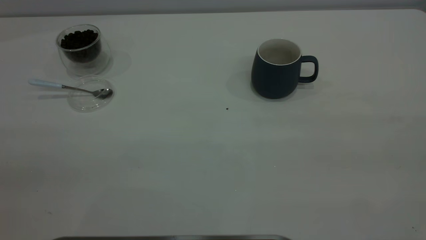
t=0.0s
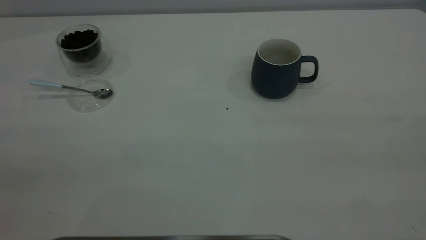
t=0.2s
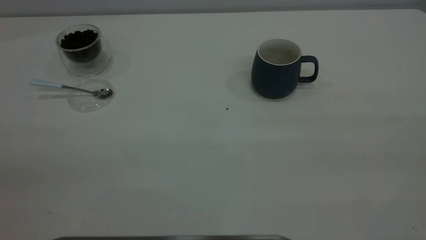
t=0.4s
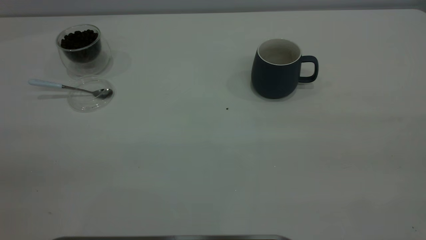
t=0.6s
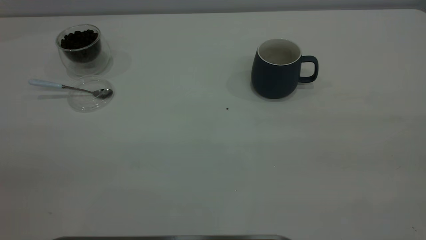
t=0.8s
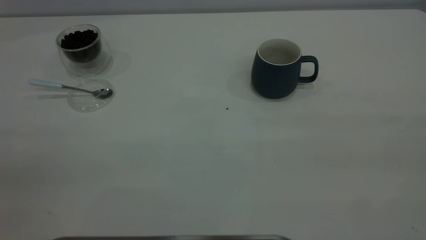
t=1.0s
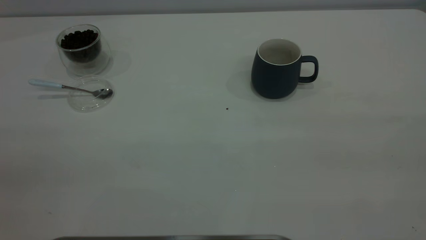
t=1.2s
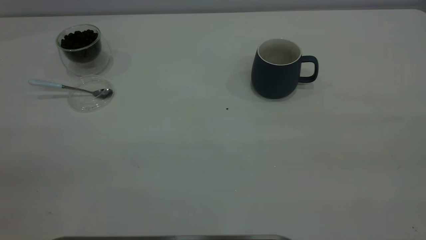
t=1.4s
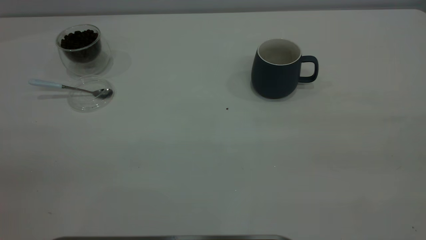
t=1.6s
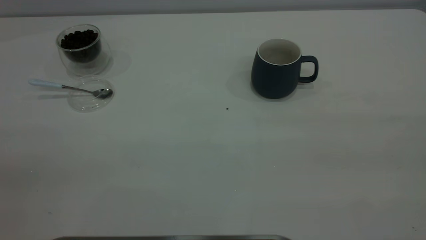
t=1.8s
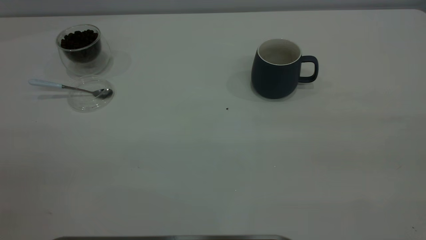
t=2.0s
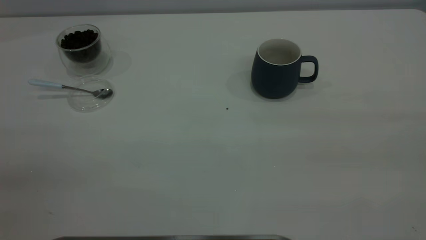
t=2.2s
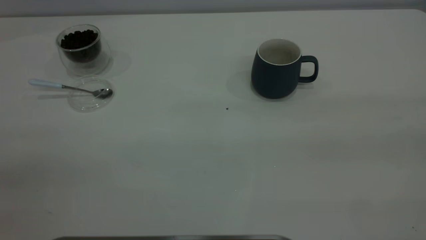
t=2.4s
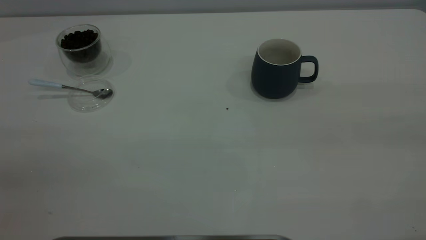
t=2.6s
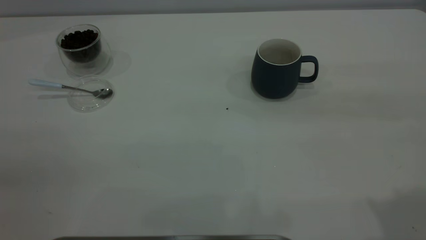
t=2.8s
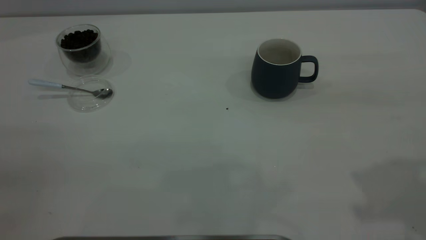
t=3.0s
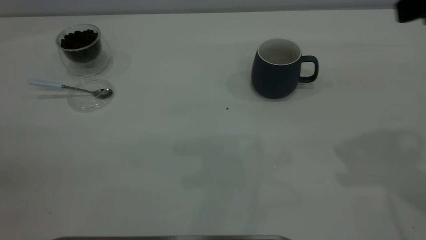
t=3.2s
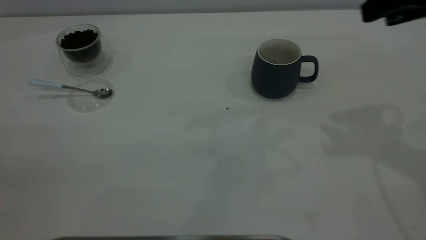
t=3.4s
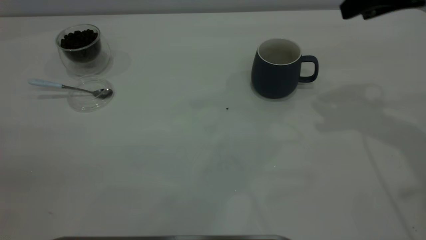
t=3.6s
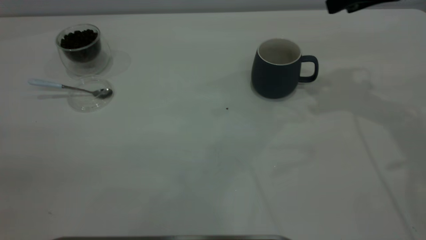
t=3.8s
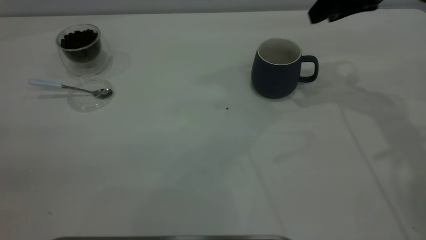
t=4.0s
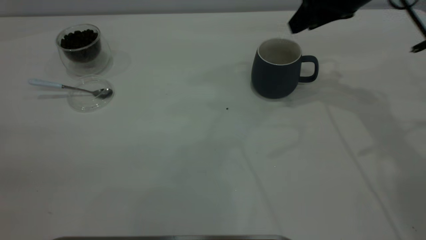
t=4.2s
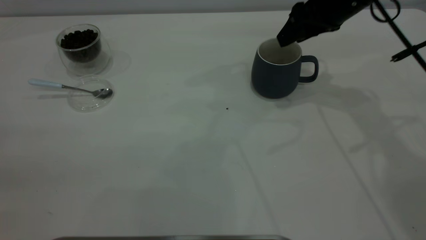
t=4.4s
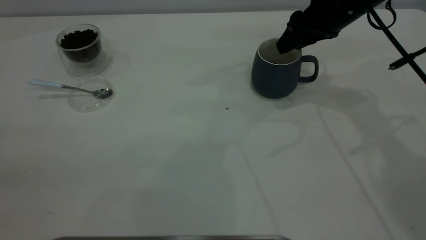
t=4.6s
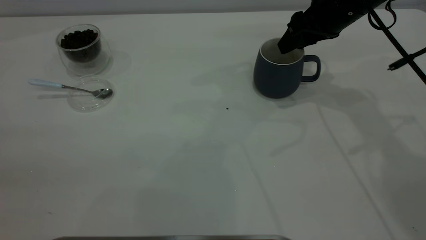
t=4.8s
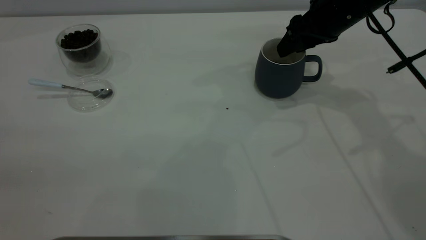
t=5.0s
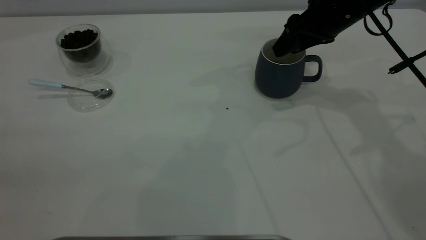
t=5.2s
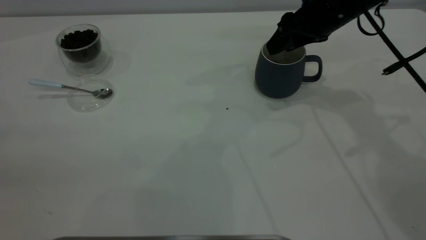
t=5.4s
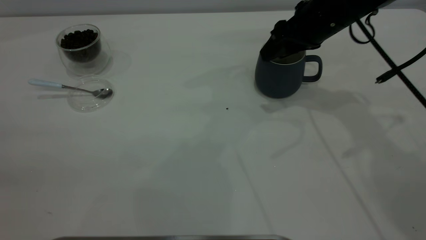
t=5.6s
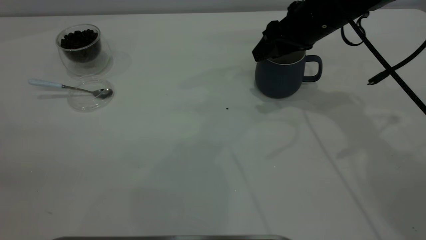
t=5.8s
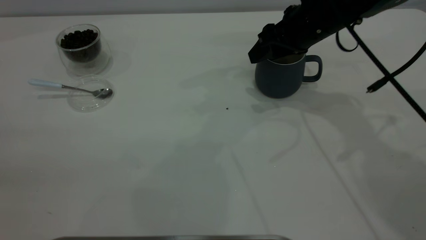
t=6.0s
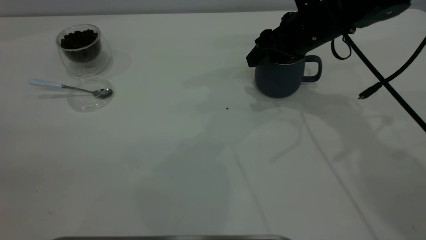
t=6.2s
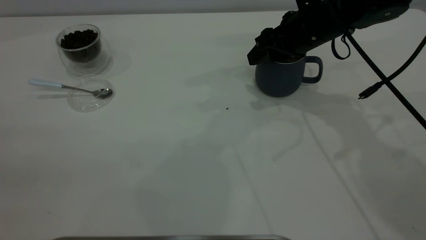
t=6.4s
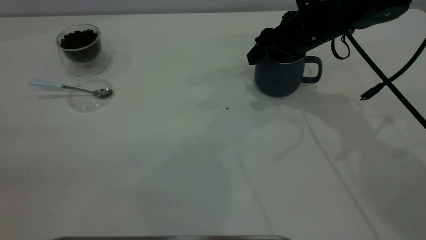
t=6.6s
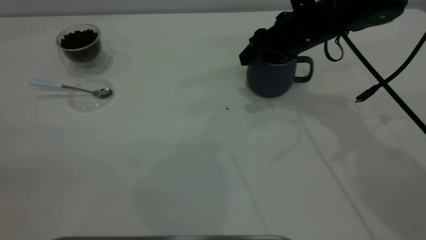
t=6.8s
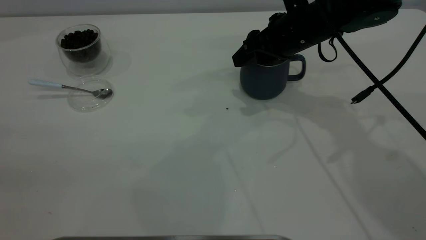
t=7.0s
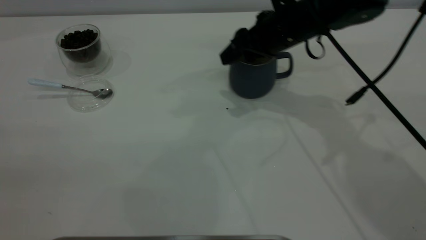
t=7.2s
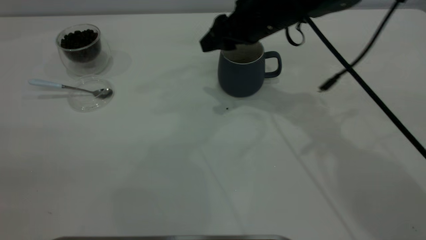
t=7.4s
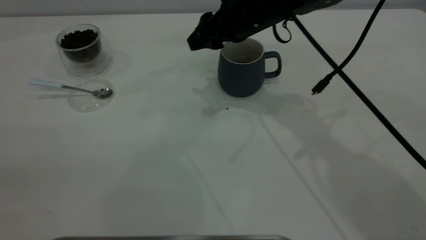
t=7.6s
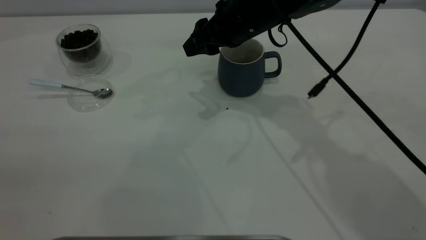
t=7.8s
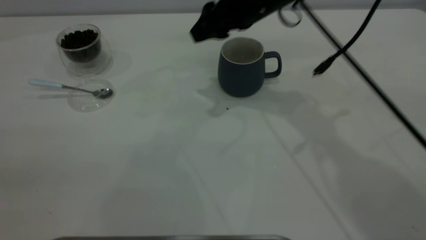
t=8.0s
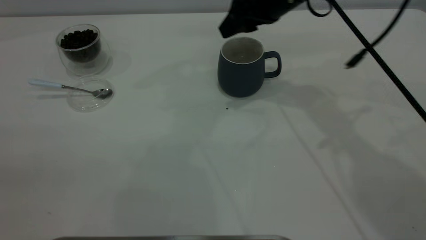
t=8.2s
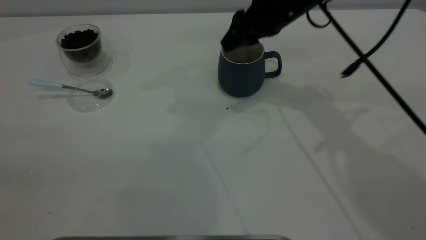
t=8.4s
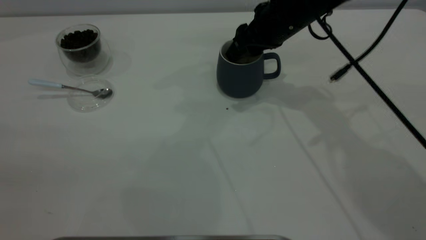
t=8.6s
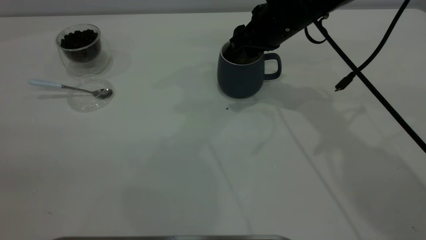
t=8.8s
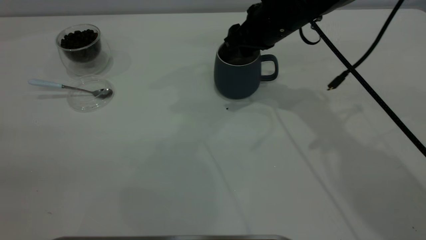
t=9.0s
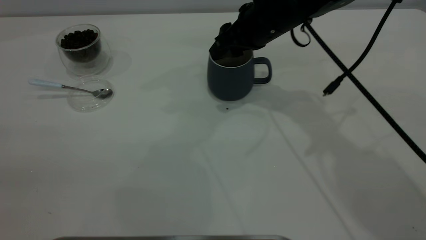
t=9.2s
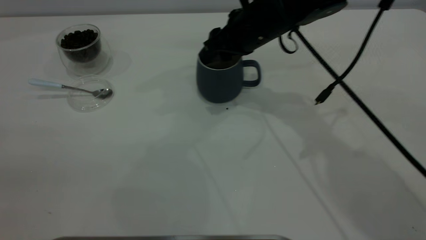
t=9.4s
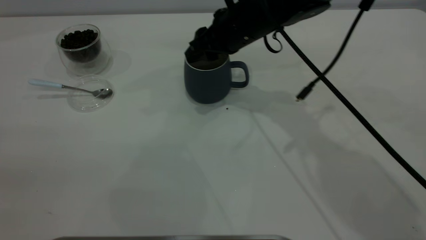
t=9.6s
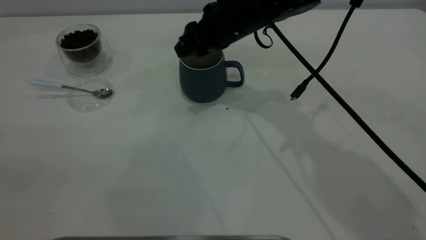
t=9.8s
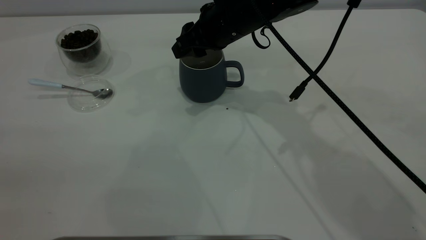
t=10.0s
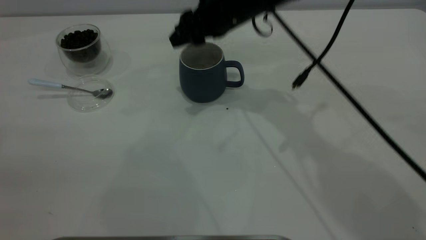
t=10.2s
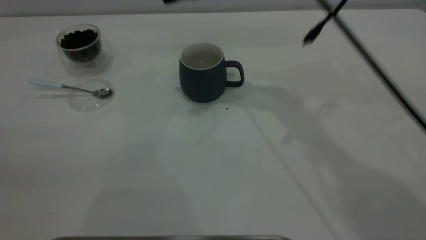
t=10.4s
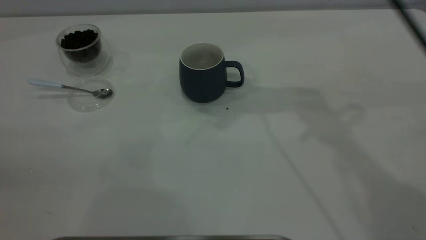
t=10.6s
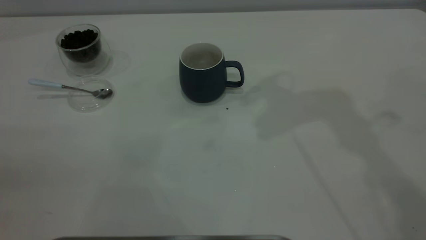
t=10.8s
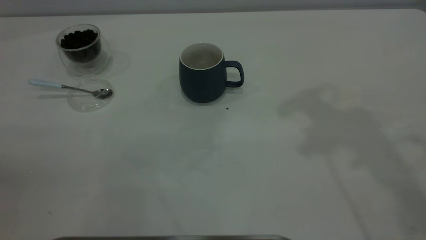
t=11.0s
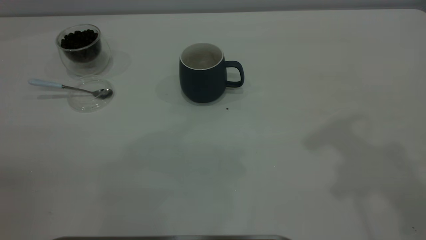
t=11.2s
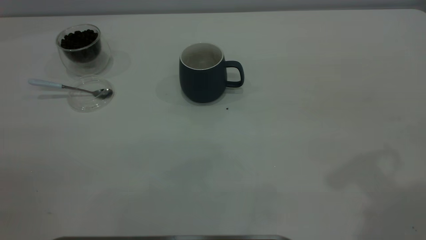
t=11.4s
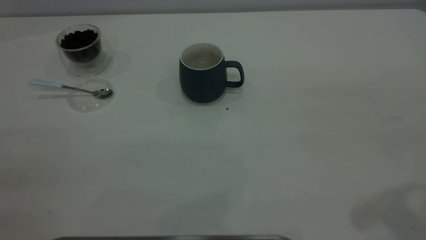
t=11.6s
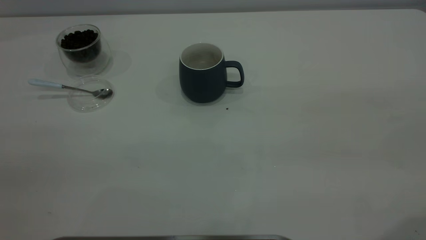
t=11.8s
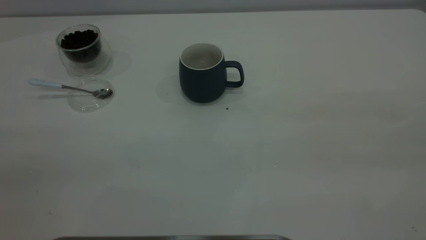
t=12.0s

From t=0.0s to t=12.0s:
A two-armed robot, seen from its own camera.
Task of the whole recording: the right gripper place the grey cup in the center of the table, the left gripper take the blue spoon from the cup lid and scoop out the coffee beans from the coffee cup and put them into the grey cup, the left gripper put the spoon back into the cup lid.
Step, from t=0.0s to t=10.2s: Move the cup to the center of view.
From t=0.0s to t=1.6s: The two grippers keep their place.
From t=3.0s to t=4.4s: The right gripper travels forward and downward by roughly 25 cm.
From t=4.4s to t=6.0s: The right gripper moves some 5 cm.
From t=6.0s to t=7.6s: The right gripper shifts about 10 cm to the left.
From t=7.6s to t=9.0s: The grippers stay close to where they were, moving slightly.
From t=9.0s to t=10.4s: The right gripper heads upward and to the left, covering approximately 15 cm.
From t=10.4s to t=12.0s: The right gripper goes roughly 40 cm backward and to the right.

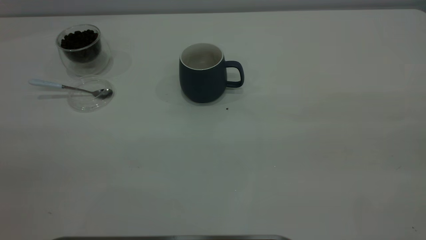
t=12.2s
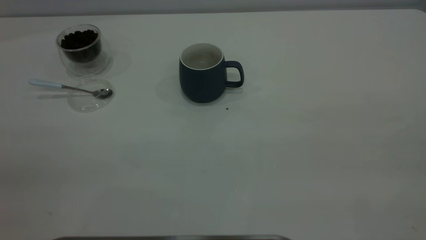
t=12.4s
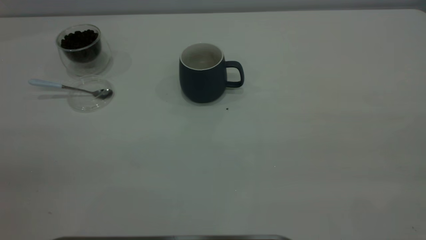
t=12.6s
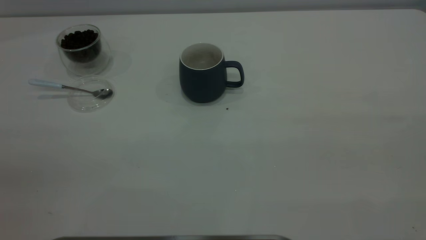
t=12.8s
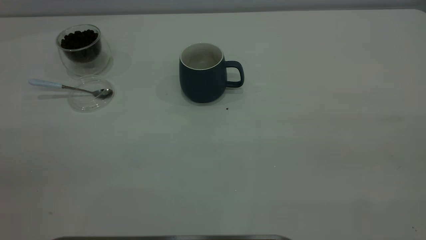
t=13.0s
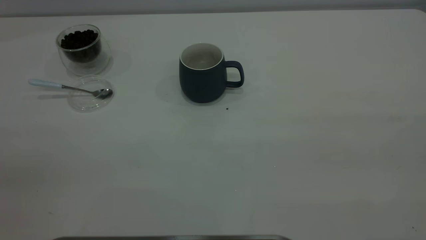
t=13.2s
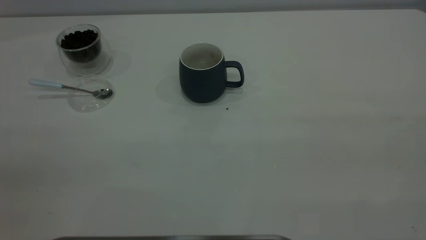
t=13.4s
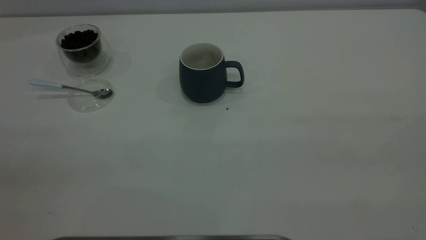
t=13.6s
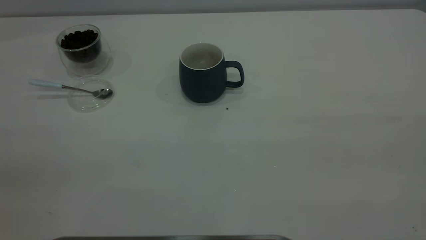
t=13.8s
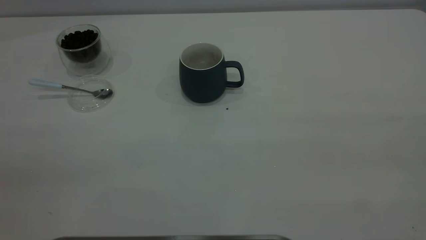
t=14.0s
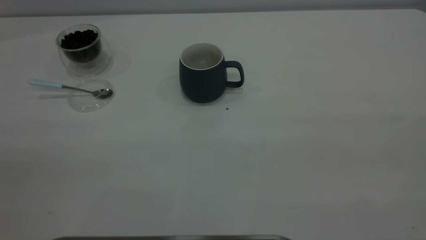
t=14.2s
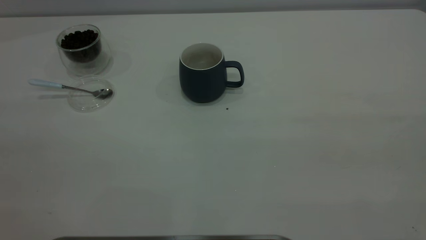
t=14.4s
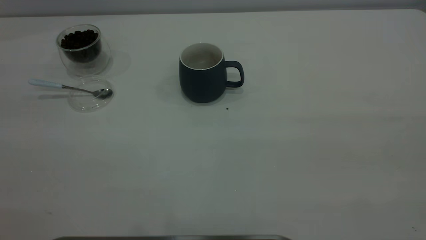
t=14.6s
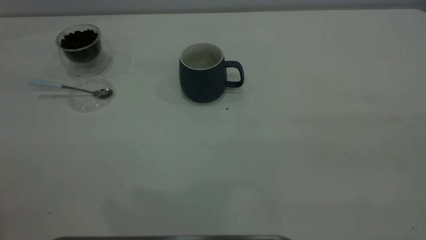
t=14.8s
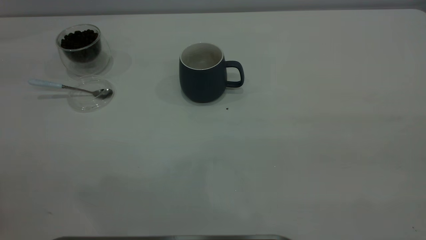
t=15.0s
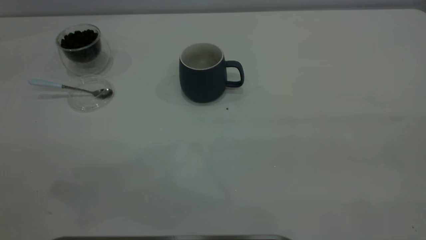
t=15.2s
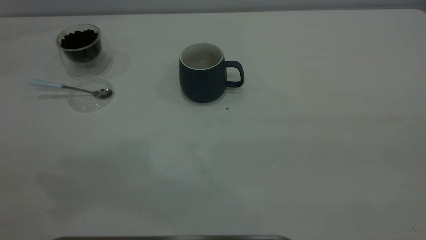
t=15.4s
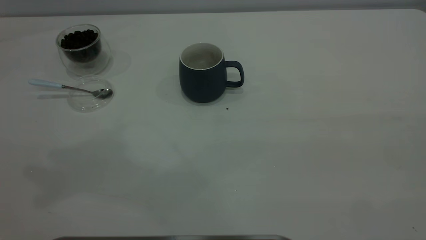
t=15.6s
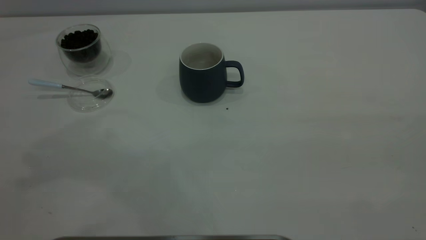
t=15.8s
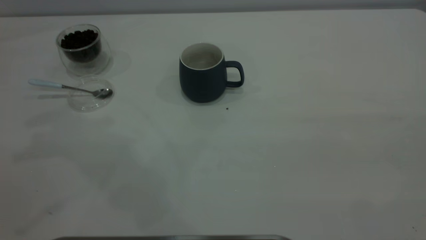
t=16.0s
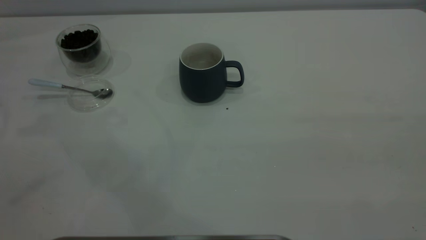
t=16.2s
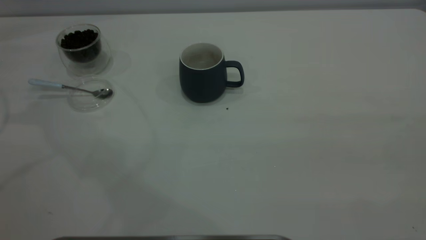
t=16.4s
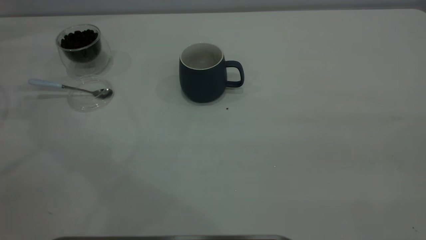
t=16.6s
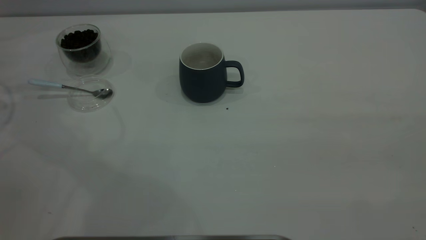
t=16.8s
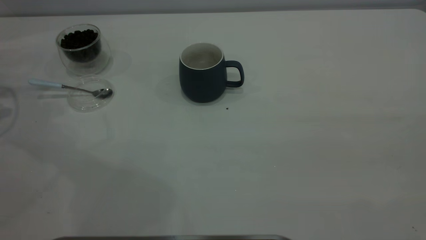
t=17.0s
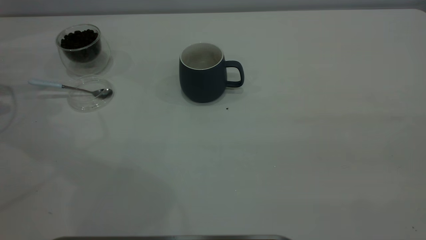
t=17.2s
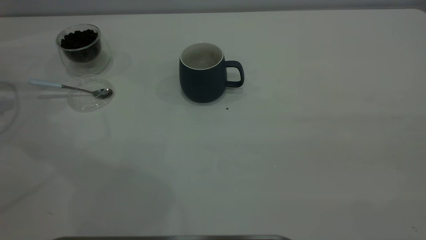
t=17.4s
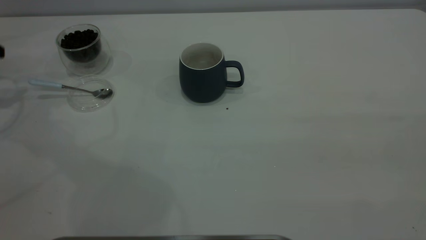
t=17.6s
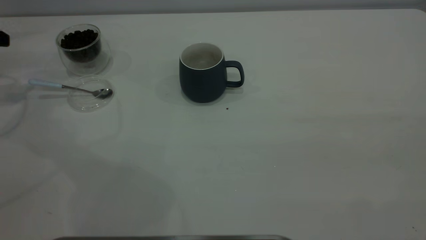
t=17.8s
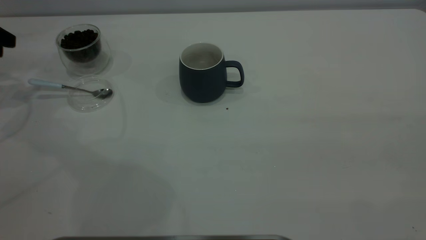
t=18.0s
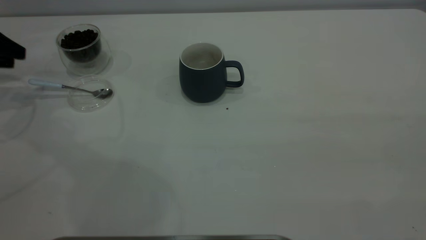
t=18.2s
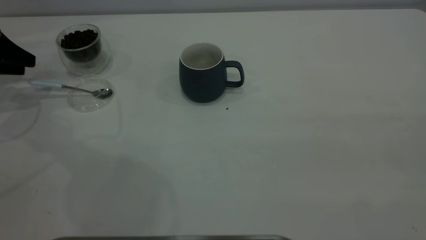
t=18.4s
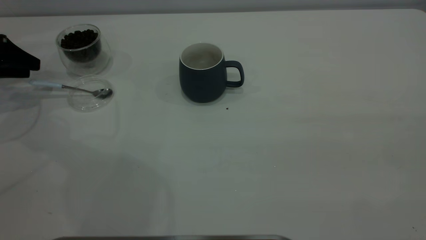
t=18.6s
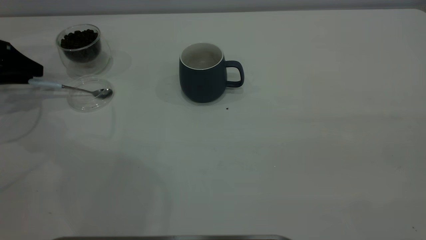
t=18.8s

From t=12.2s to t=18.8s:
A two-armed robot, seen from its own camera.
Task of the whole recording: the right gripper place the grey cup in the center of the table, the left gripper take the blue spoon from the cup lid and scoop out the coffee beans from the coffee cup and put them into the grey cup, the left gripper put the spoon back into the cup lid.
From t=17.2s to t=18.8s: The left gripper ends up some 5 cm from where it was.
